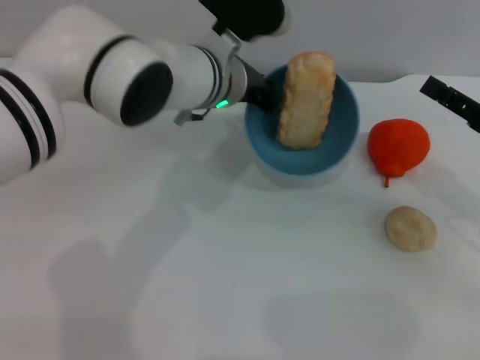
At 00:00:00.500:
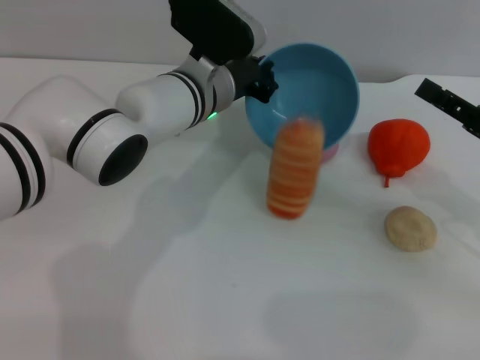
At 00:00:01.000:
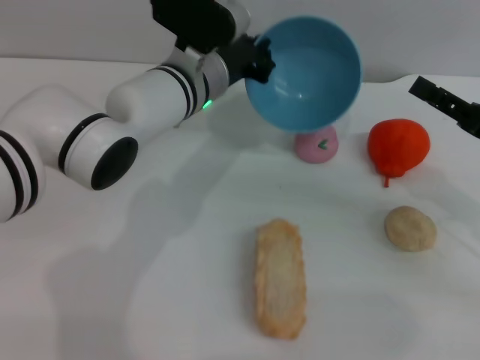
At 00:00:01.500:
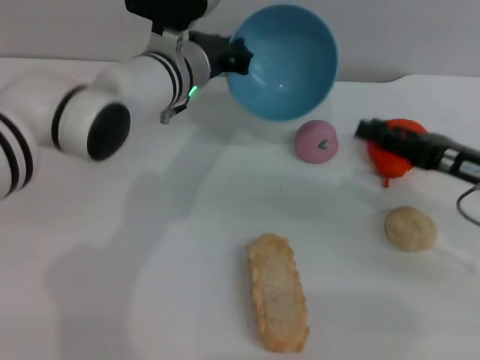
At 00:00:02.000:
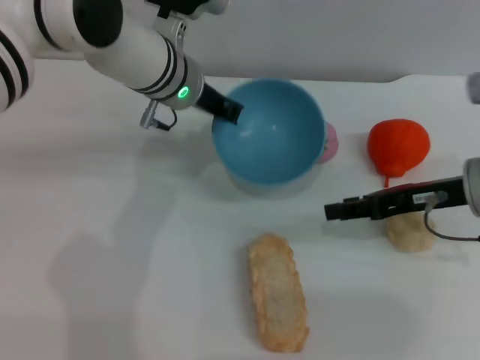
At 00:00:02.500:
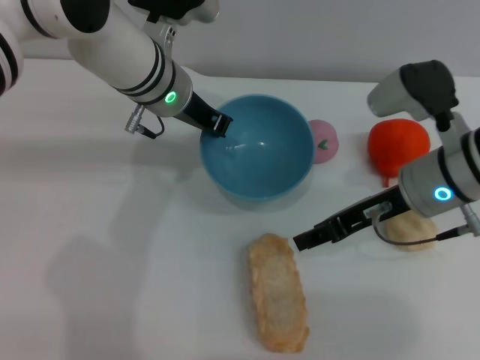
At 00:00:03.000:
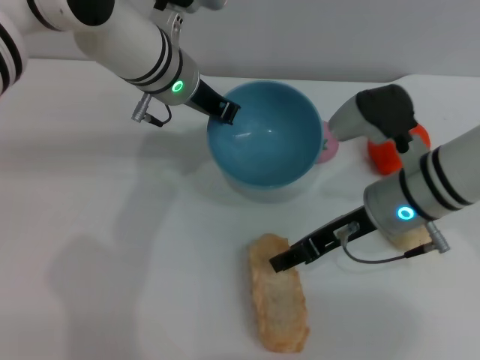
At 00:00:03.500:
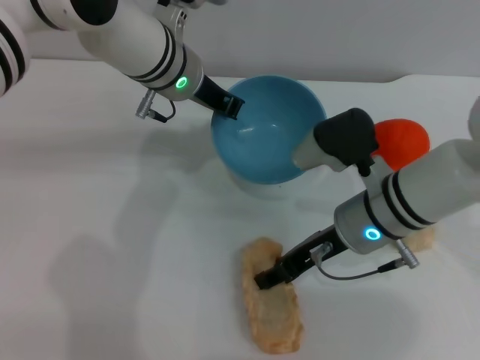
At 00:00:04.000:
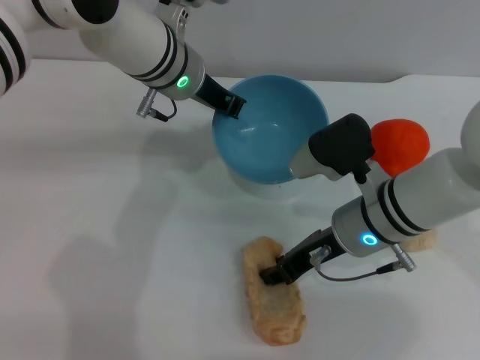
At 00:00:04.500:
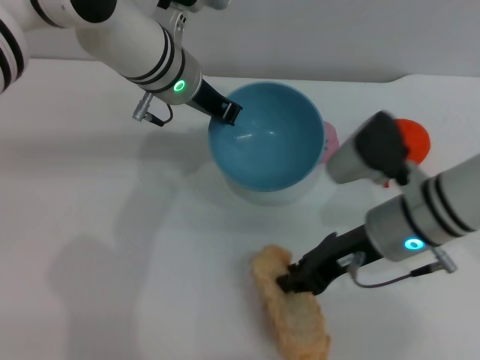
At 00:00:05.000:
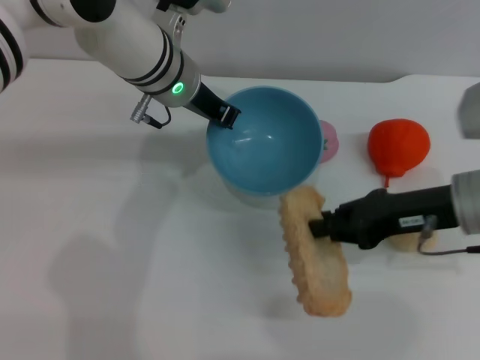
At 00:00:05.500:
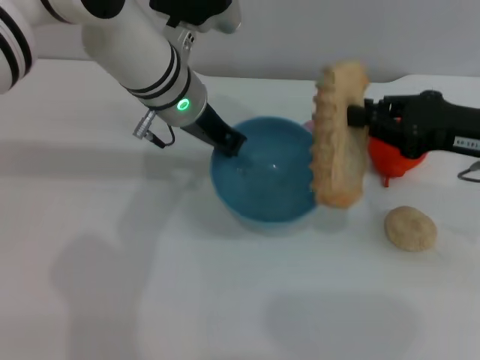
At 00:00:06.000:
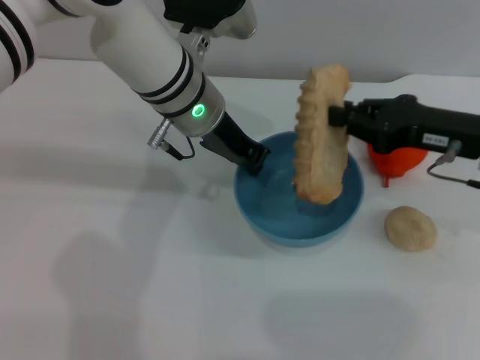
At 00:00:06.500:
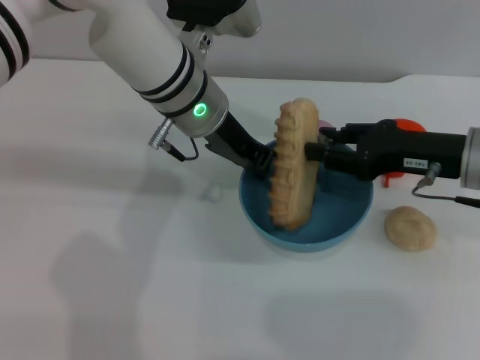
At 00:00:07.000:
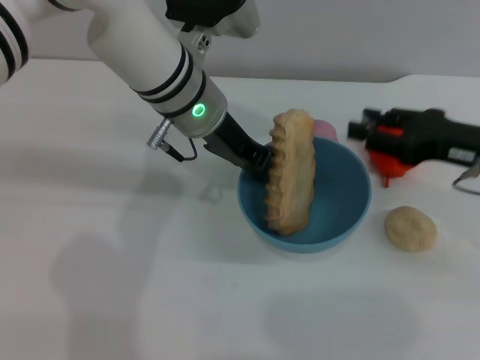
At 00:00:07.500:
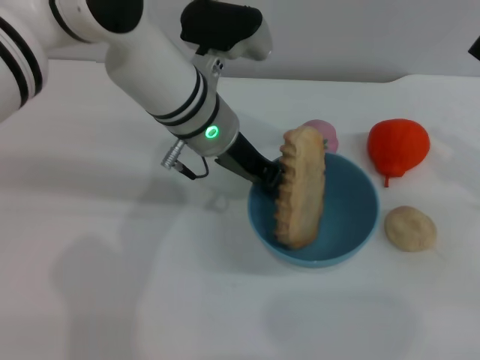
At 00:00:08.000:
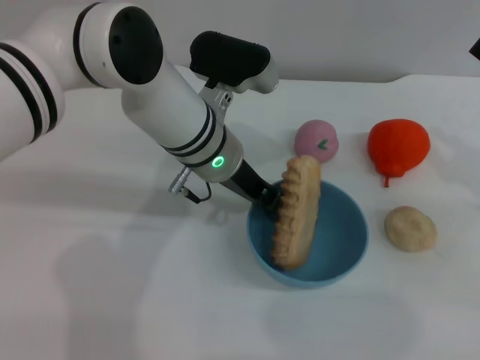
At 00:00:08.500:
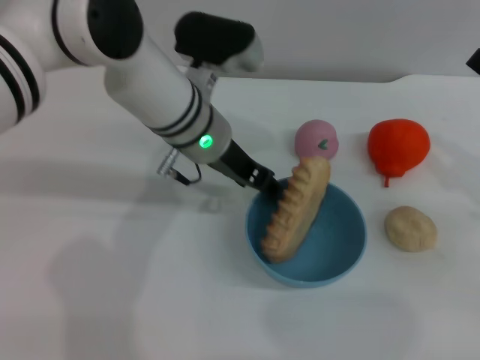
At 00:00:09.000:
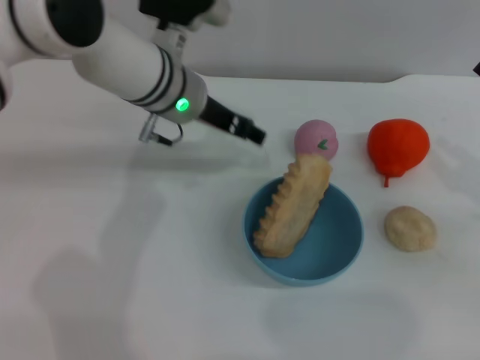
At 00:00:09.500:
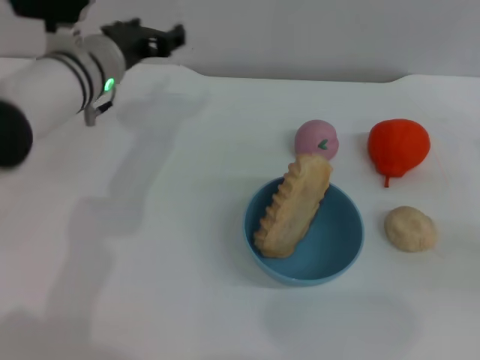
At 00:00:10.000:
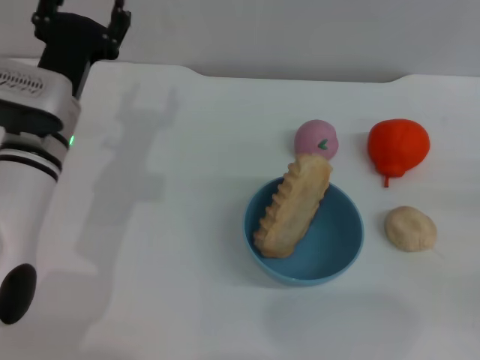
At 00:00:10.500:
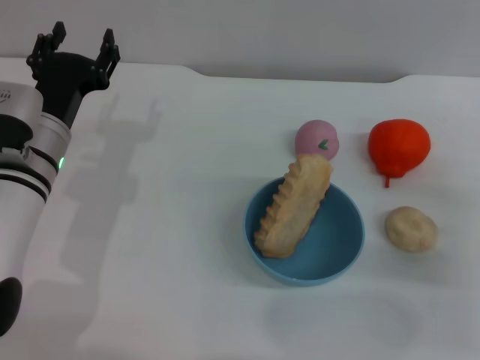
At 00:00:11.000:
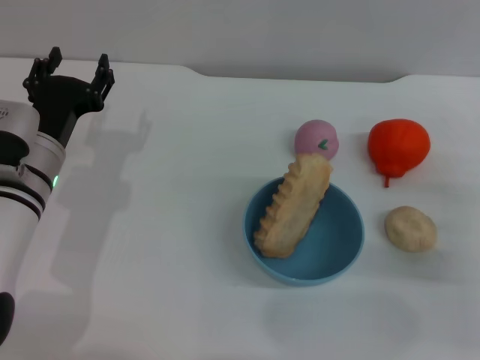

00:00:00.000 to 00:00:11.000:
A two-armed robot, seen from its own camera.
Task of the whole recording: put the bread into the blue bowl and pour it out repeatedly.
Step, 00:00:01.500 to 00:00:04.500: Pick up the bread with the right gripper.
Step, 00:00:05.500 to 00:00:06.500: Place the bread into the bowl.
Step, 00:00:07.500 to 00:00:09.000: Place the bowl on the table.
00:00:00.000 to 00:00:02.000: The right gripper is displaced to the left by some 10 cm.
00:00:02.000 to 00:00:03.500: The right gripper moves to the left, roughly 10 cm.
00:00:03.500 to 00:00:05.500: The right gripper travels to the right and upward by some 15 cm, and closes its fingers.
00:00:05.500 to 00:00:07.500: The right gripper is displaced to the right by some 5 cm, and opens.
00:00:07.500 to 00:00:09.000: The left gripper opens its fingers.
00:00:09.000 to 00:00:11.000: The right gripper is displaced downward by roughly 10 cm, and travels to the right and back again, approximately 5 cm each way. The left gripper travels to the left, downward and backward by approximately 20 cm.
